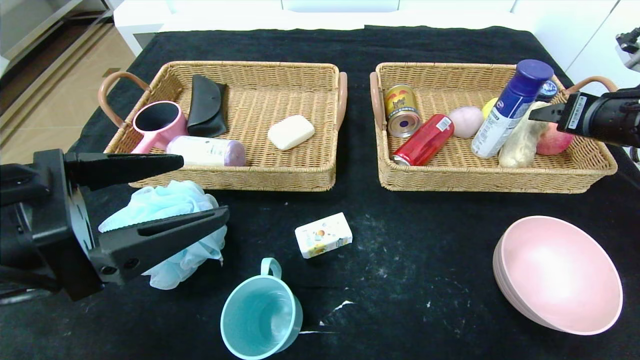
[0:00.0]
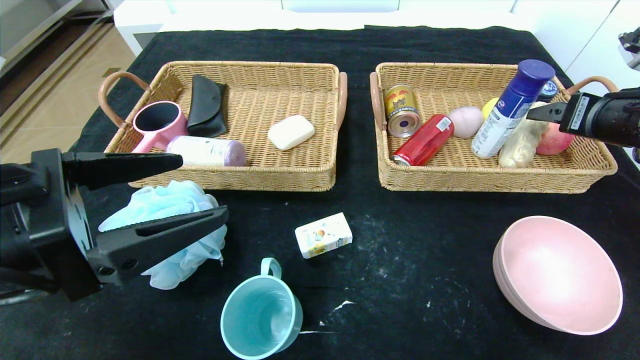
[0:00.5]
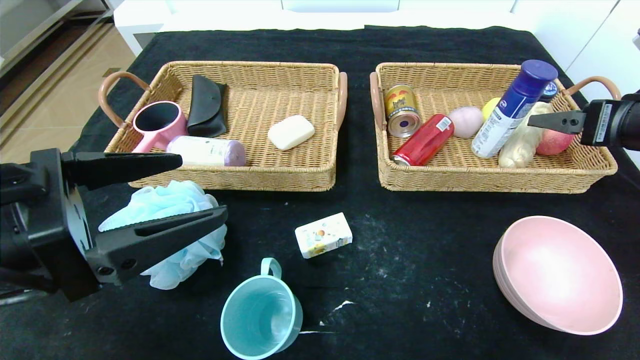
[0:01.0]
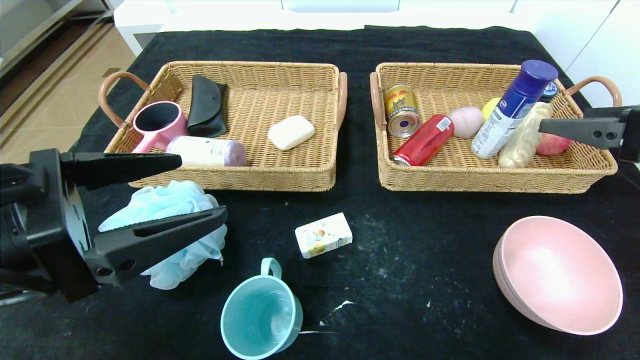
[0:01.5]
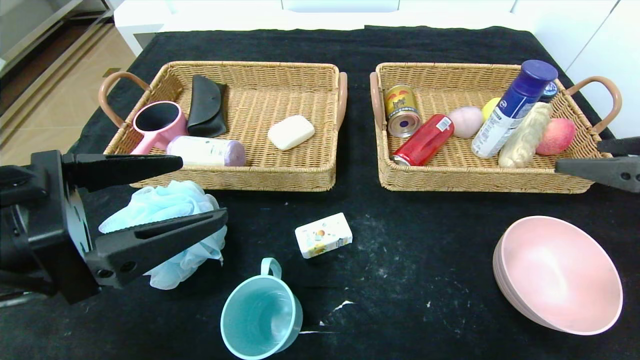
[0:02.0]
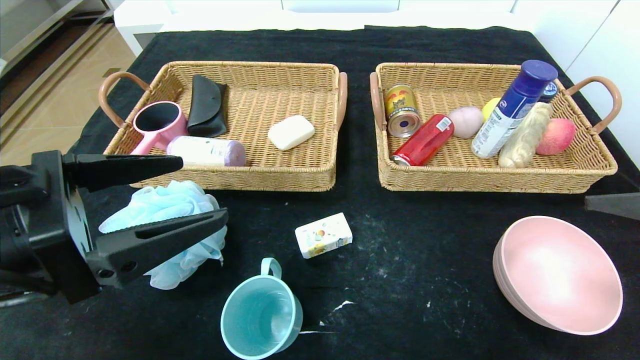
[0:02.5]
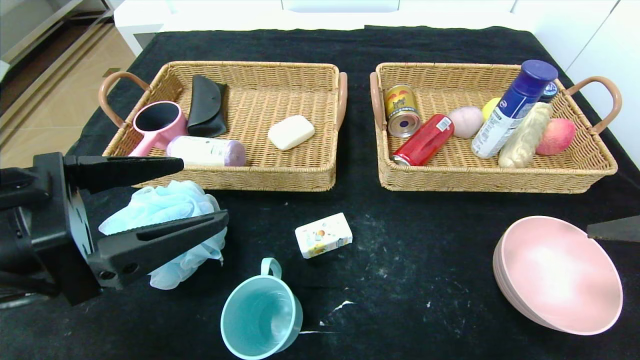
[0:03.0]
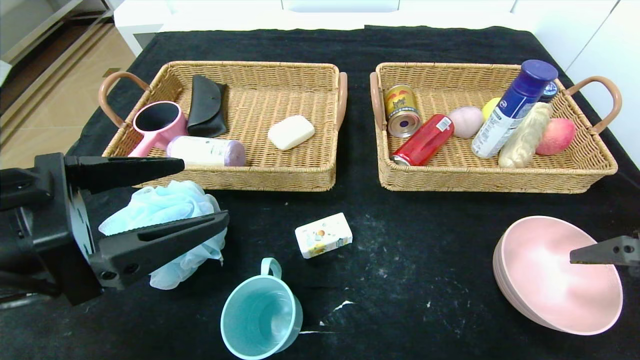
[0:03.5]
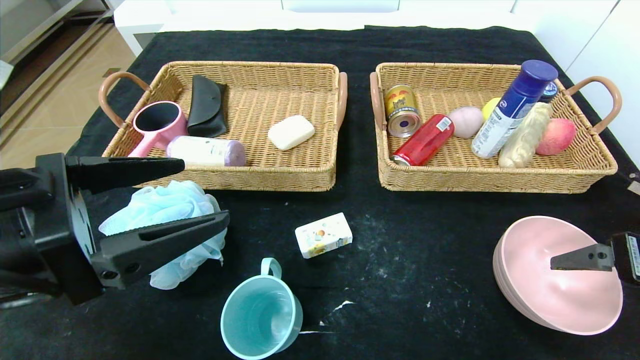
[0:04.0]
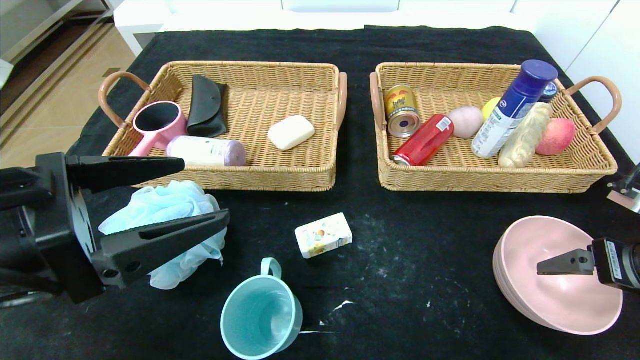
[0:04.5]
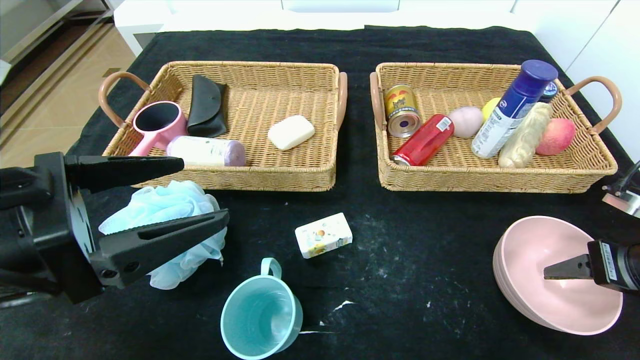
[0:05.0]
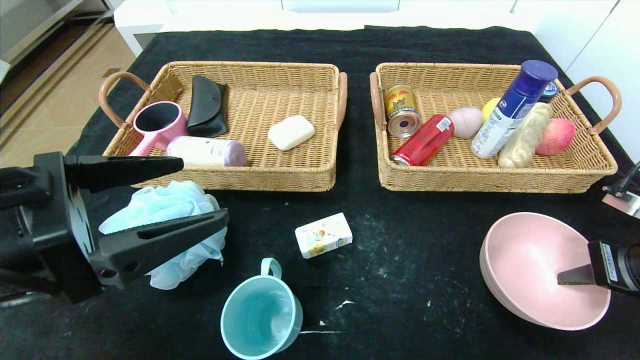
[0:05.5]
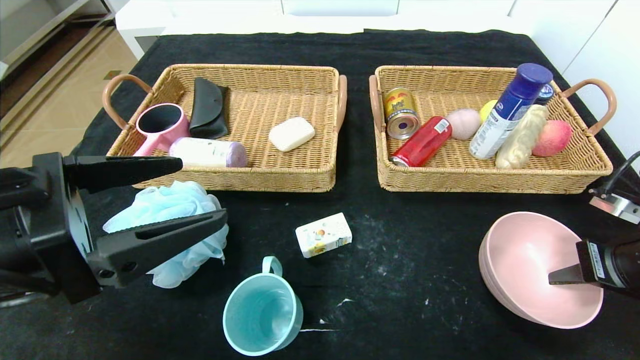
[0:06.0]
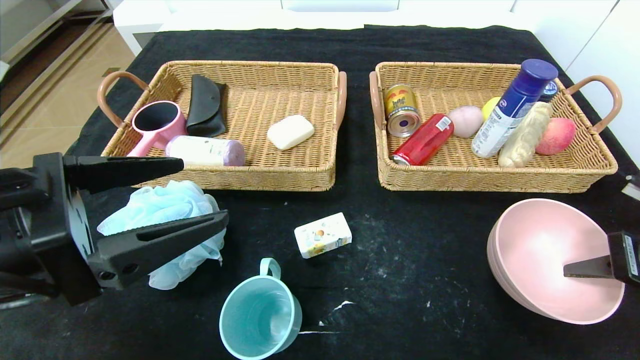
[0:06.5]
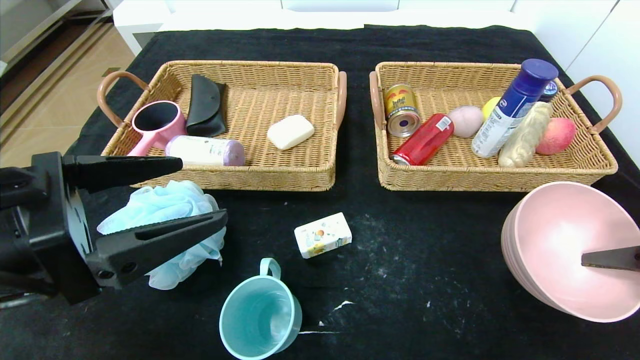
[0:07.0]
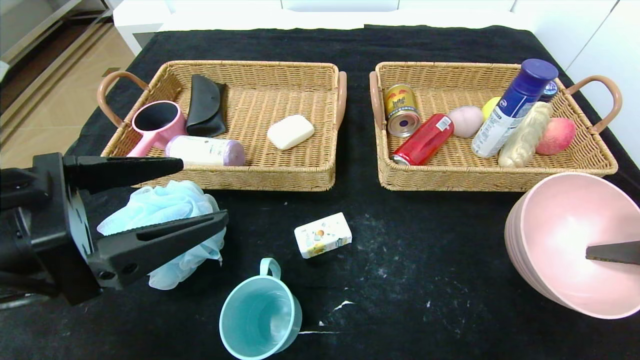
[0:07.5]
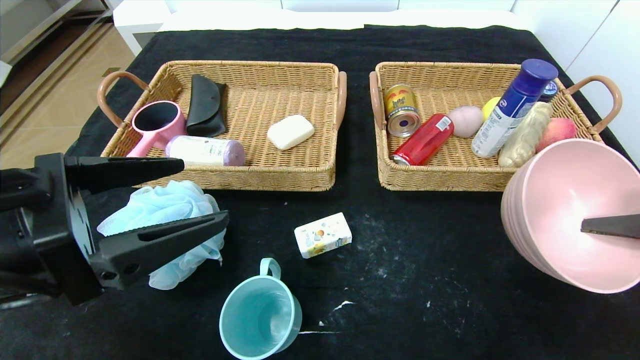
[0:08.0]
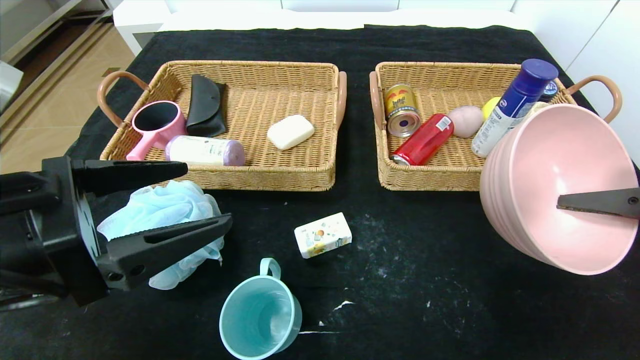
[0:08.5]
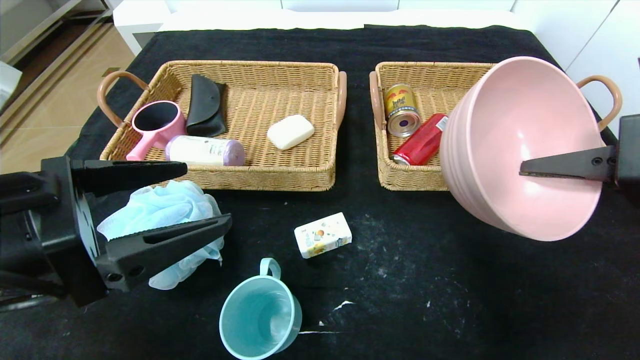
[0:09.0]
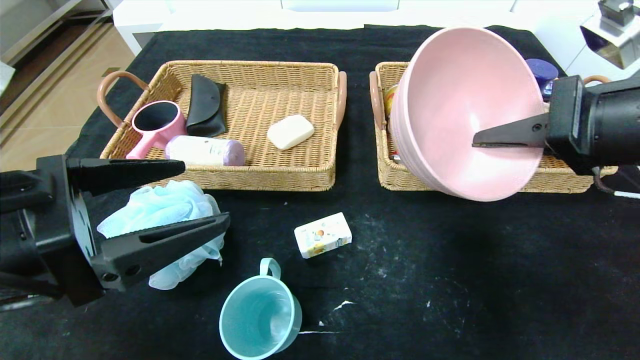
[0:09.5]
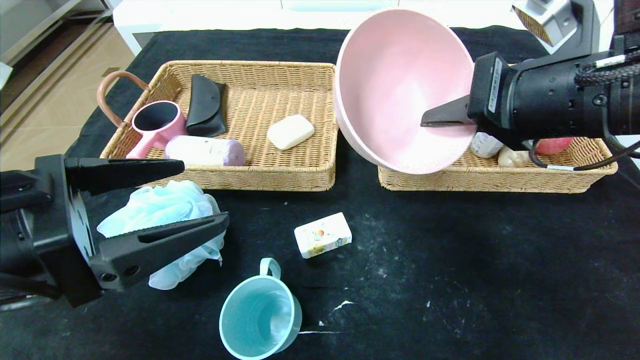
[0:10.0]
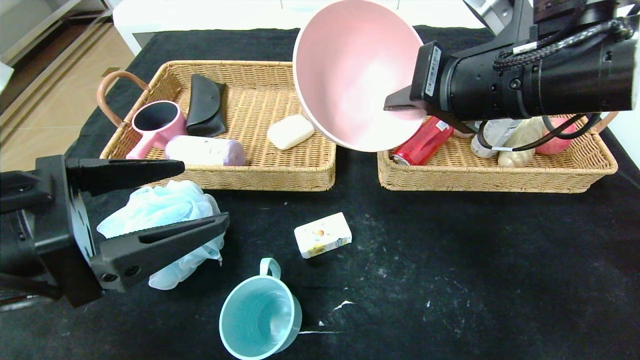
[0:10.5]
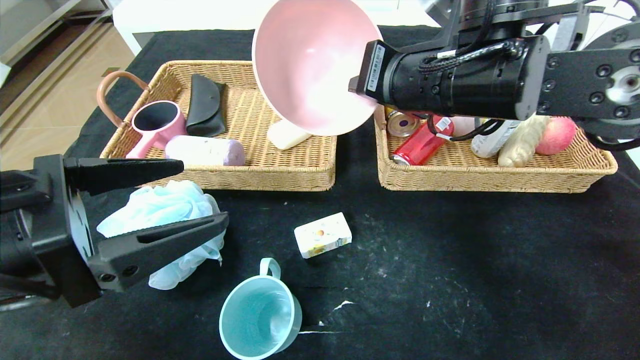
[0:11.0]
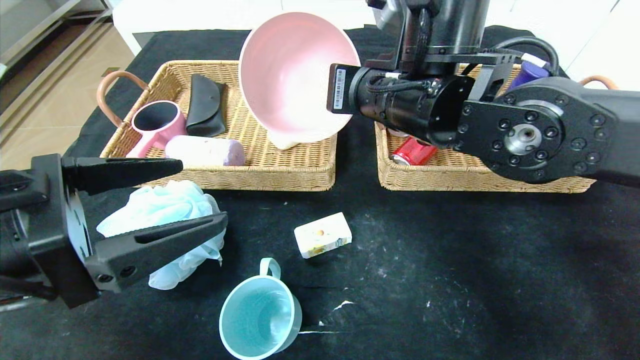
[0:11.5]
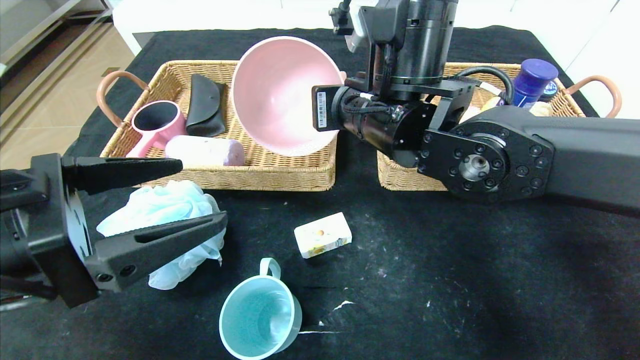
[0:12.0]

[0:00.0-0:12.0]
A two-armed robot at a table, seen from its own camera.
0.0 to 2.0 s: The right gripper heads backward, covering approximately 15 cm.
2.0 to 4.0 s: The right gripper shifts some 10 cm downward.
4.0 to 6.0 s: The right gripper closes.
6.0 to 8.0 s: The right gripper shifts roughly 10 cm upward and backward.
8.0 to 10.0 s: The right gripper shifts some 20 cm to the left, forward and upward.
10.0 to 12.0 s: The right gripper goes approximately 15 cm to the left and forward.

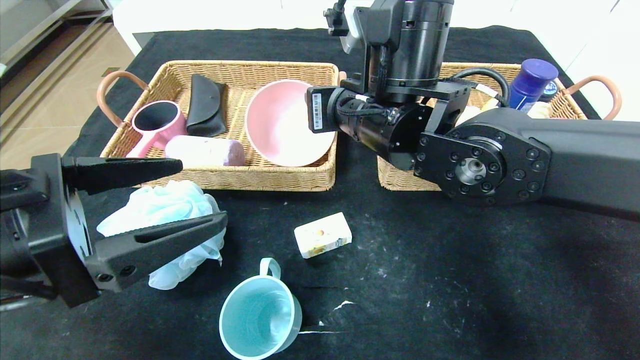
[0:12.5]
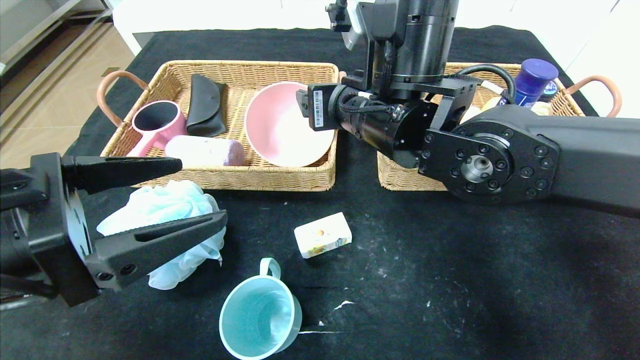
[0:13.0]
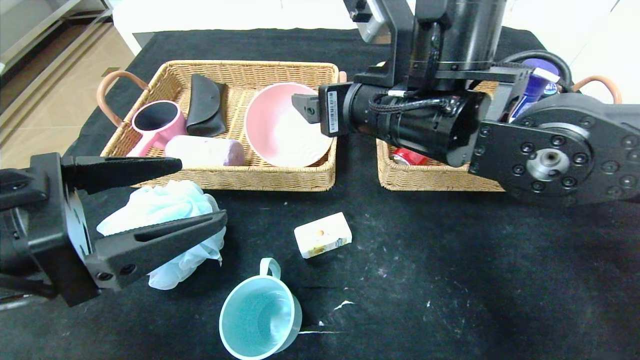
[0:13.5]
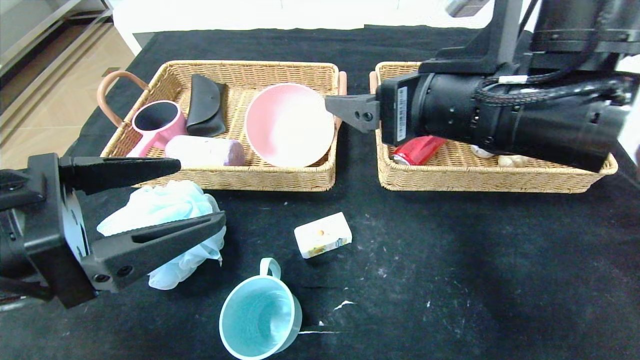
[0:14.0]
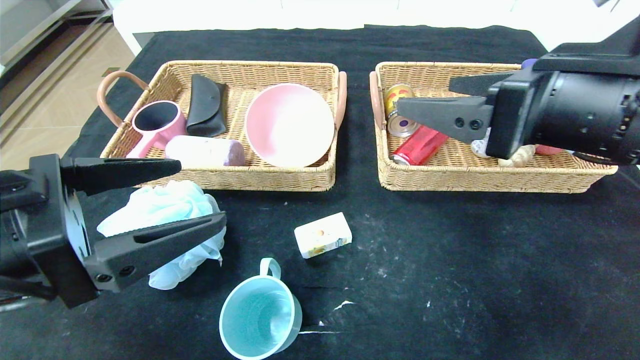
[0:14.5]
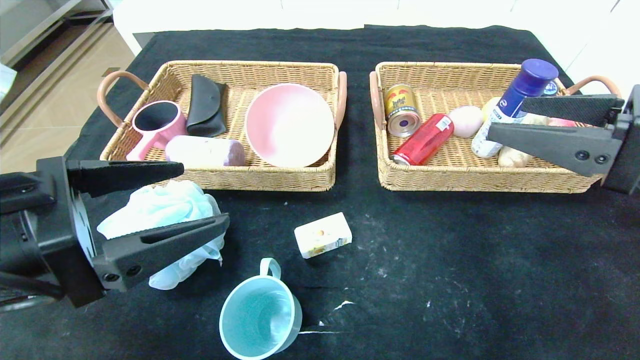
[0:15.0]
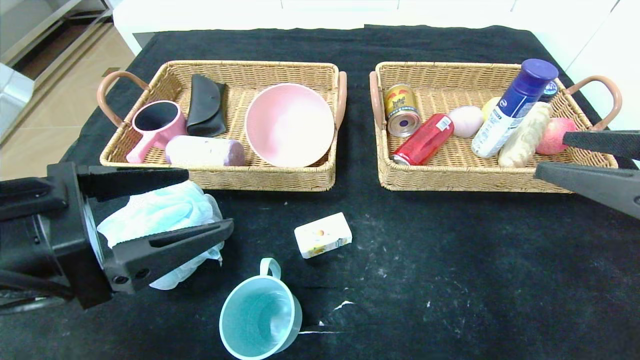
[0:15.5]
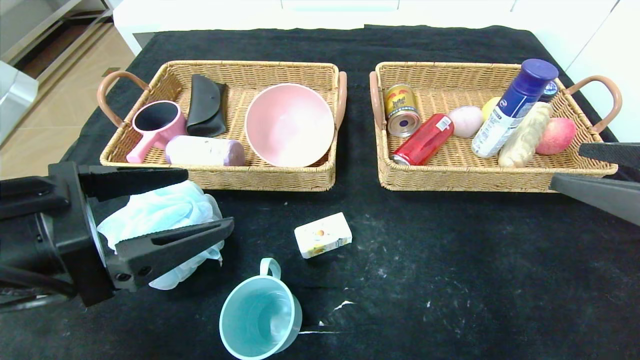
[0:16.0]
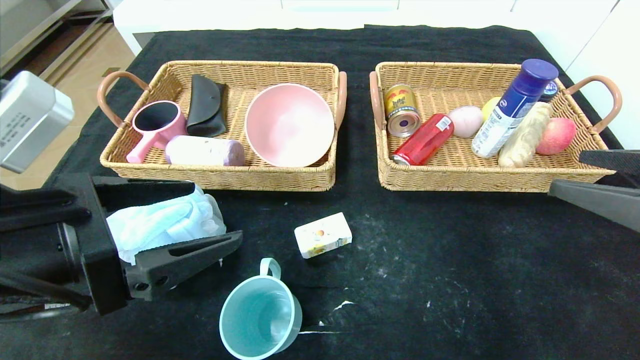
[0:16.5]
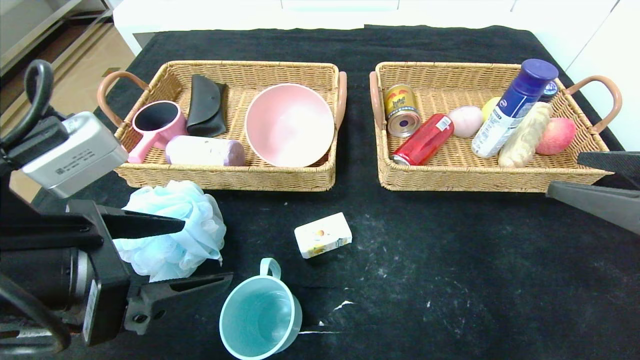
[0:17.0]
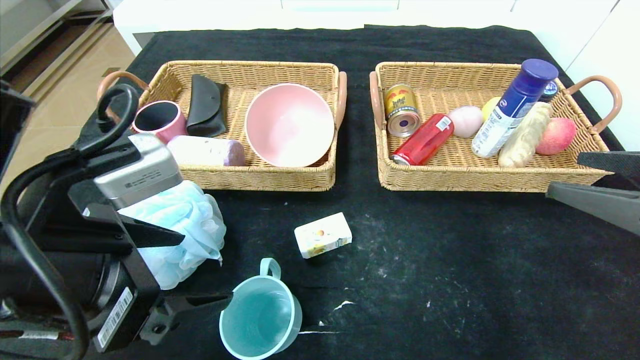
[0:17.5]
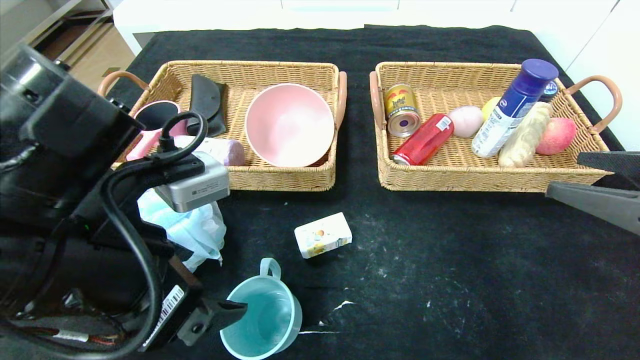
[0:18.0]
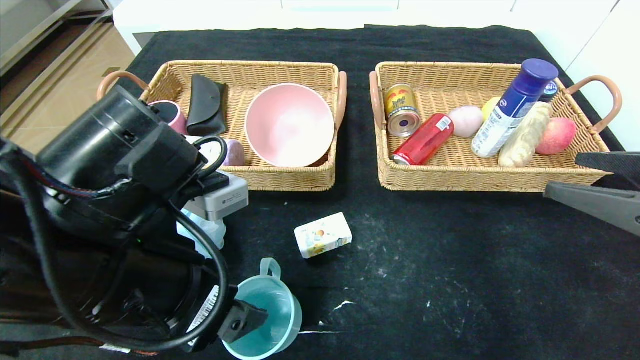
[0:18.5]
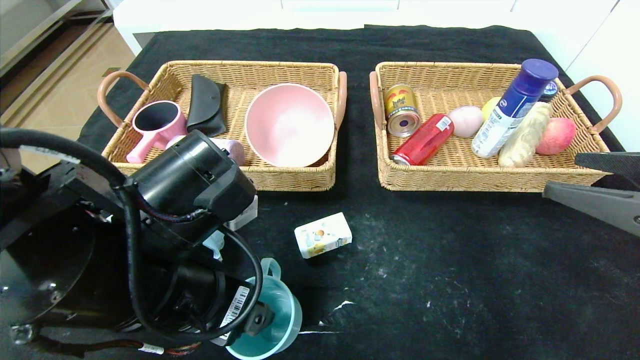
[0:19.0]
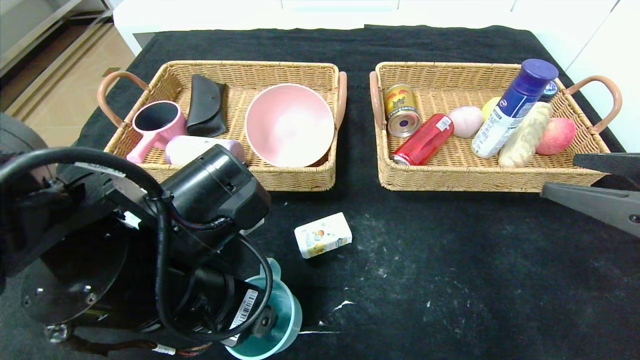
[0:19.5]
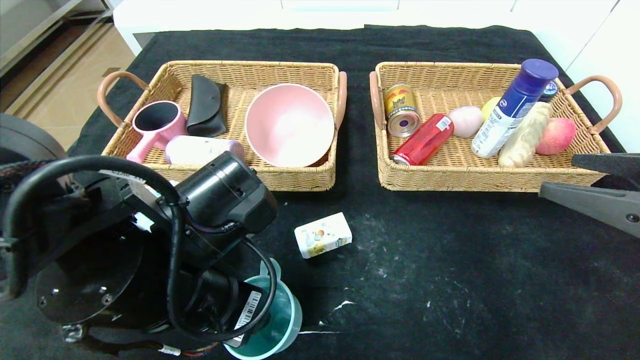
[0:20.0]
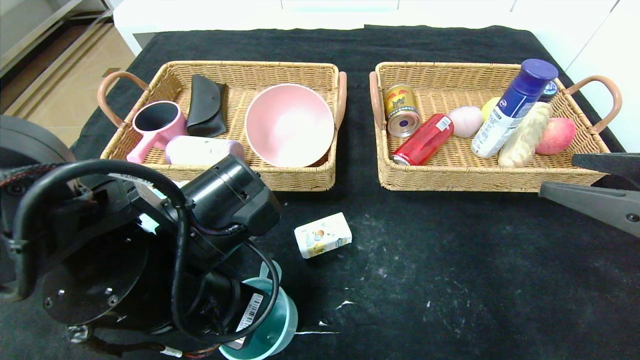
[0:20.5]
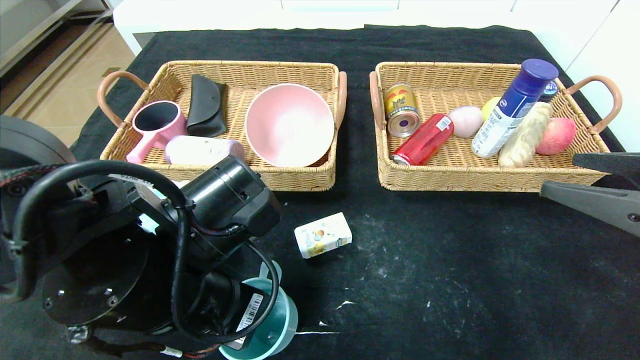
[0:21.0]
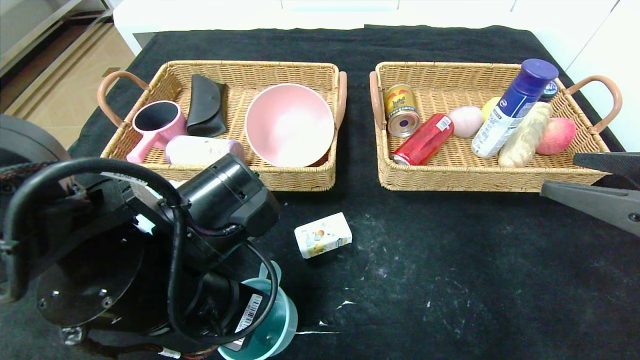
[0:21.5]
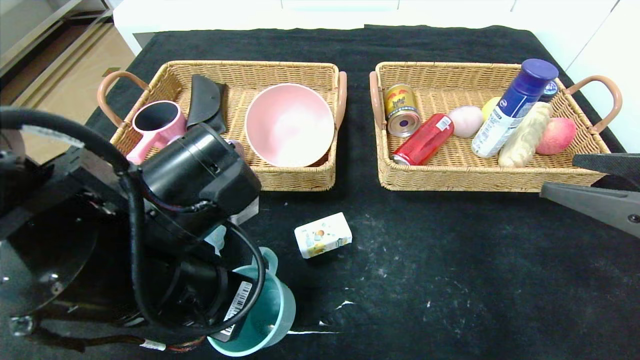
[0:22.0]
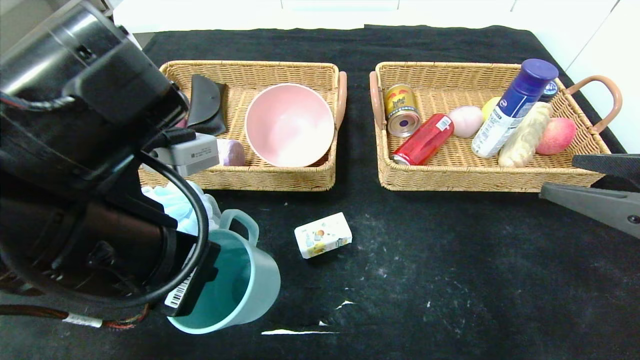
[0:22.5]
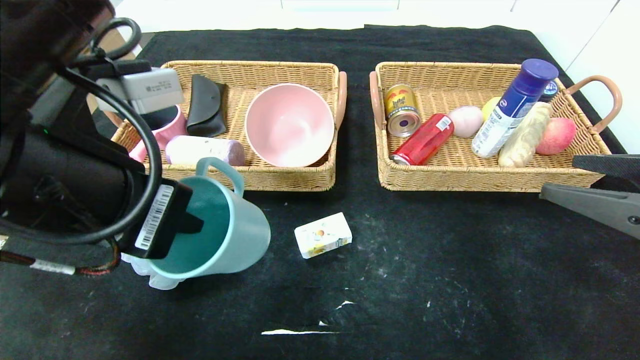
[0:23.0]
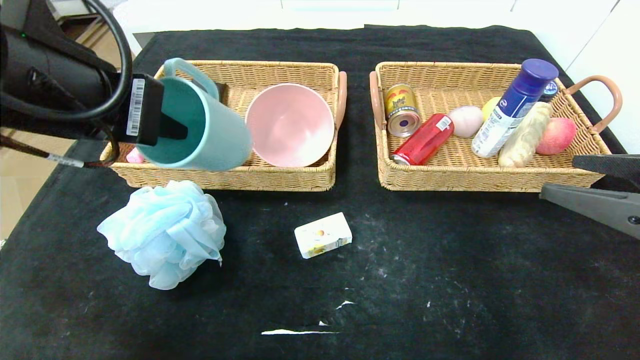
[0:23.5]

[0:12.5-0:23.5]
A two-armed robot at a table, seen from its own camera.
12.5 to 14.5 s: The right gripper is displaced to the right and backward by approximately 20 cm, and opens.
14.5 to 16.0 s: The right gripper goes approximately 10 cm to the right and backward.
16.0 to 18.0 s: The left gripper moves to the right, about 5 cm.
18.0 to 20.0 s: The left gripper is displaced downward by approximately 5 cm.
20.0 to 21.5 s: The left gripper closes up.
21.5 to 23.5 s: The left gripper is displaced upward and to the left by roughly 15 cm.
